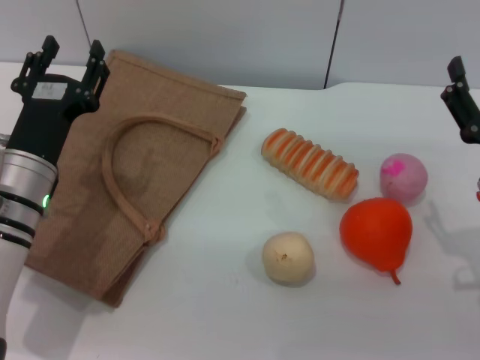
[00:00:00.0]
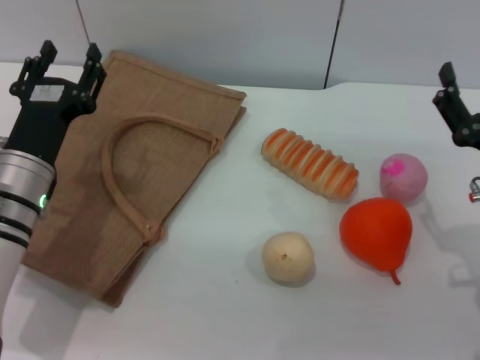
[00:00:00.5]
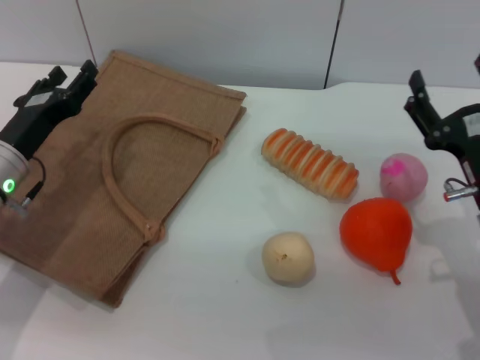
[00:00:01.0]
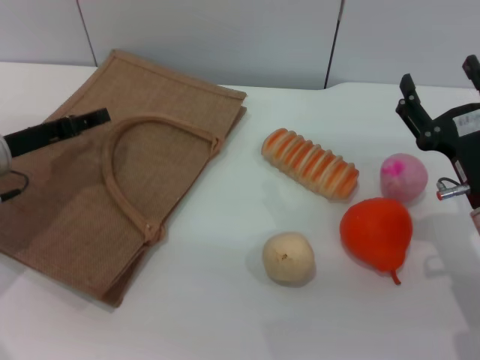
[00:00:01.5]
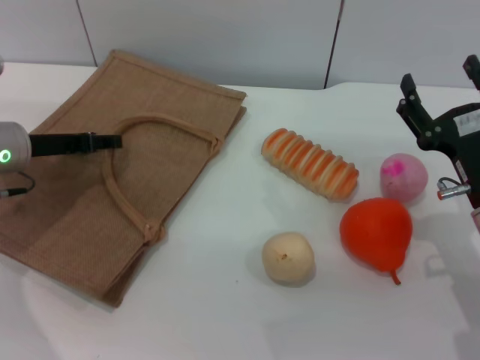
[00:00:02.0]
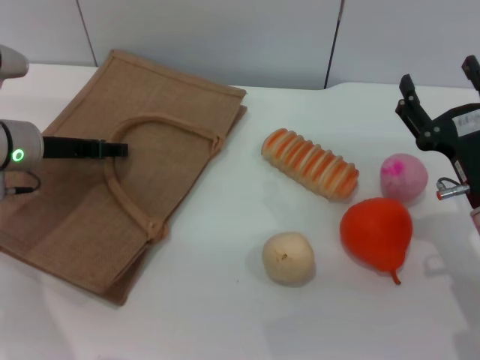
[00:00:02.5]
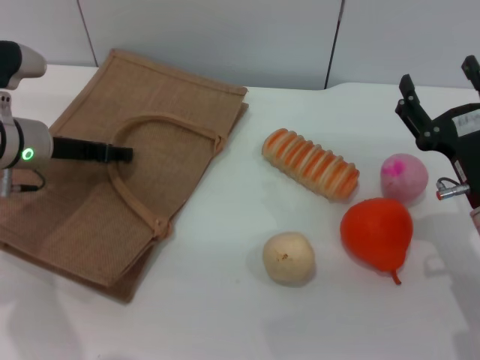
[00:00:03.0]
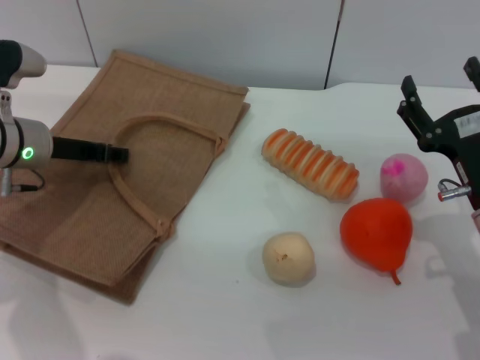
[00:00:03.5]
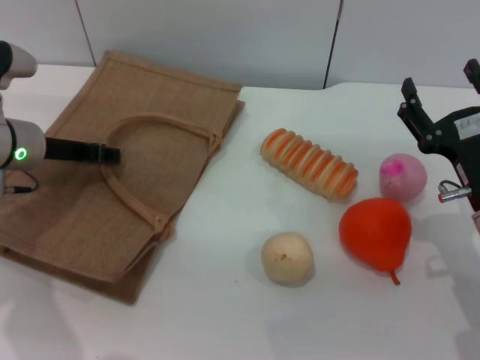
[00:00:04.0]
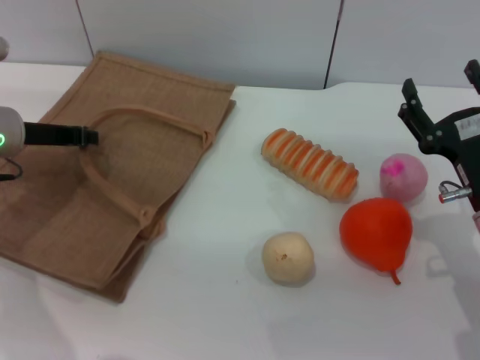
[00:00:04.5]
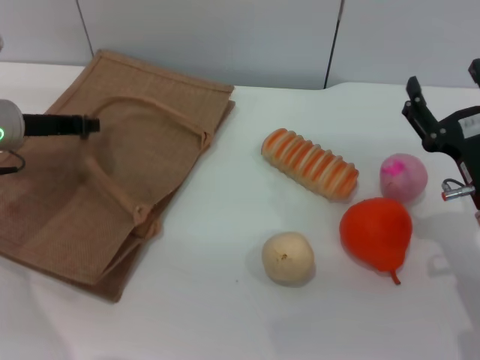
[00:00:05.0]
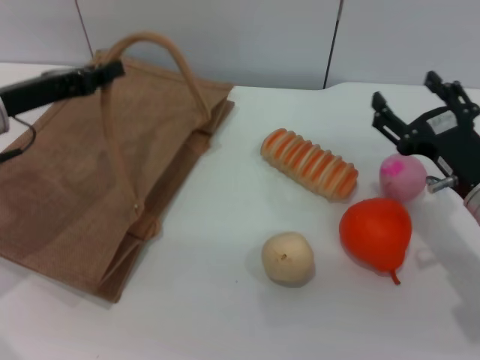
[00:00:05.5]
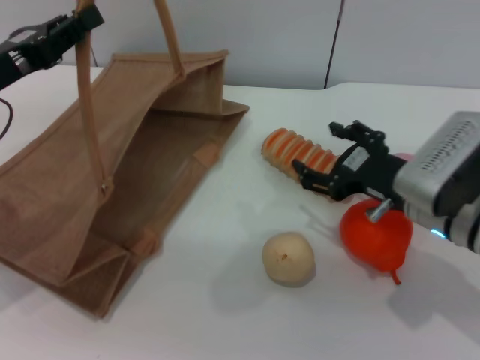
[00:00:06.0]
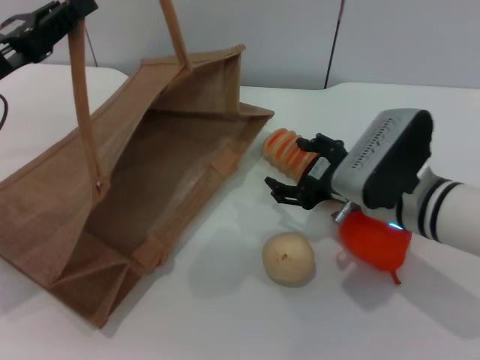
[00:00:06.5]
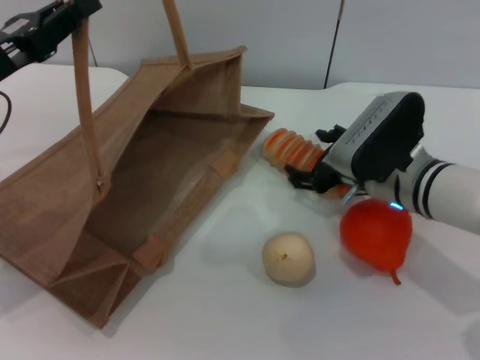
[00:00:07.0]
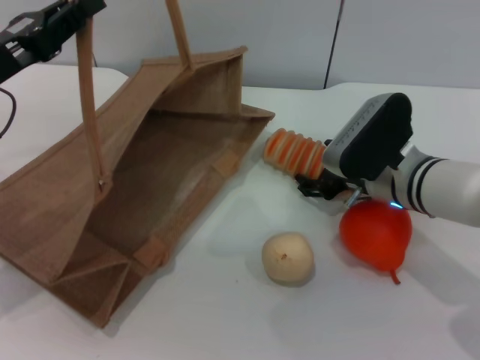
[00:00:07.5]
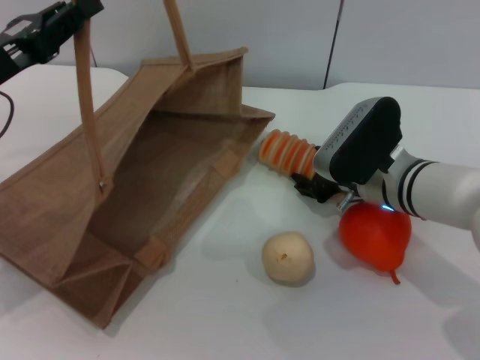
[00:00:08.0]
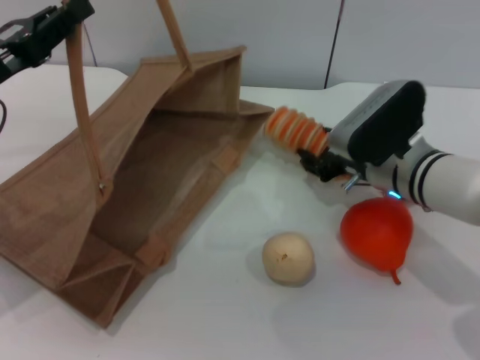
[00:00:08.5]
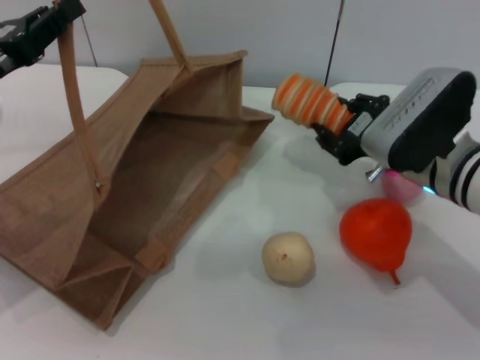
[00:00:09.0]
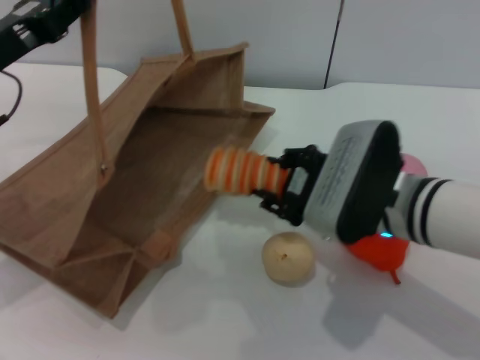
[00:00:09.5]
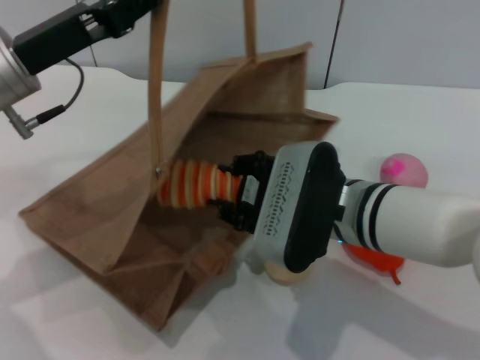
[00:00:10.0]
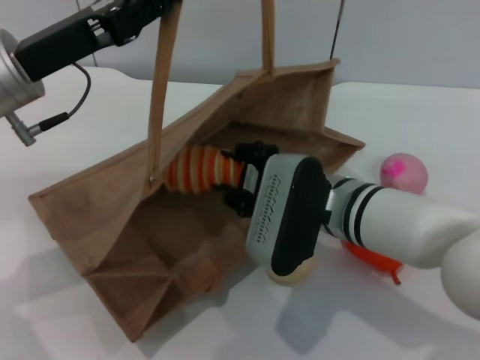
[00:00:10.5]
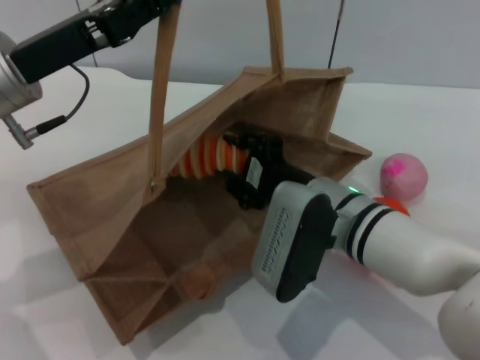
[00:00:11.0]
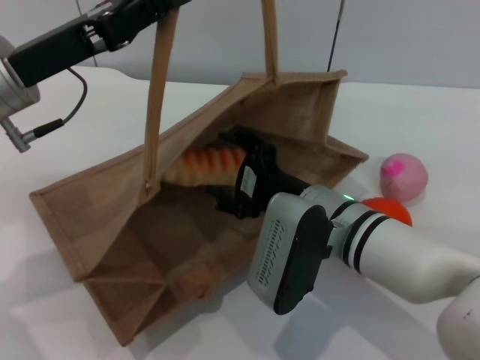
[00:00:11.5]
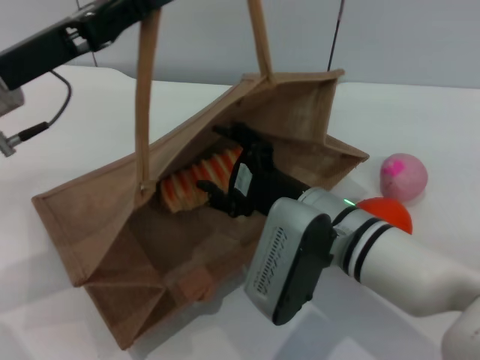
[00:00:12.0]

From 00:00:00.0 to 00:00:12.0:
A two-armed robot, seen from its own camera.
Task of the whole recording: pick up the bread from the table and place it in the brown handbag.
Step, from 00:00:00.0 to 00:00:05.0: Lift the woven bag with the left gripper to open it.
Step, from 00:00:05.5 to 00:00:08.5: Pick up the bread with the right gripper.
From 00:00:00.0 to 00:00:02.0: The left gripper is displaced forward and to the left by about 10 cm.
From 00:00:02.0 to 00:00:04.0: The left gripper closes its fingers.
From 00:00:04.0 to 00:00:06.0: The right gripper ends up some 5 cm from where it was, while the left gripper shifts some 10 cm backward and upward, and closes.
From 00:00:06.0 to 00:00:08.0: The right gripper heads forward, covering roughly 5 cm.
From 00:00:08.0 to 00:00:10.0: The left gripper heads to the right, covering approximately 5 cm; the right gripper shifts about 10 cm backward and to the left, and closes.
From 00:00:10.0 to 00:00:12.0: The right gripper opens.

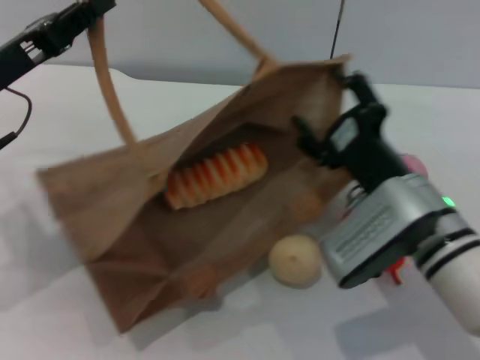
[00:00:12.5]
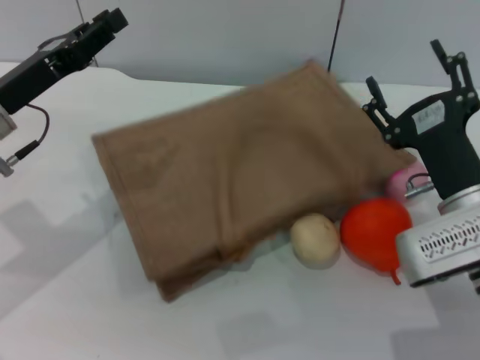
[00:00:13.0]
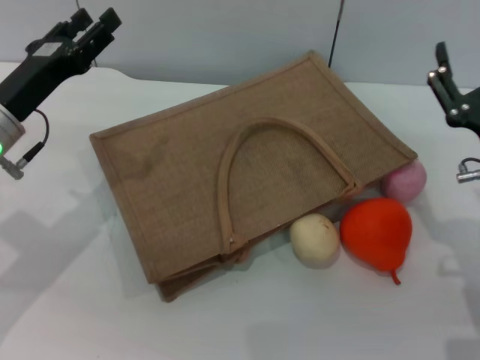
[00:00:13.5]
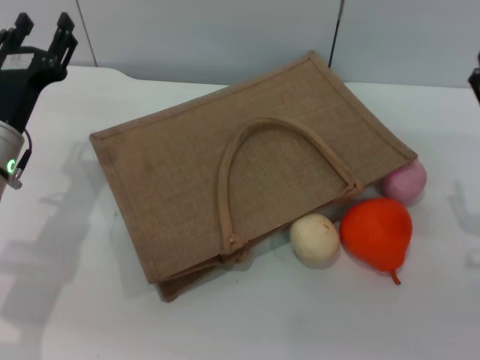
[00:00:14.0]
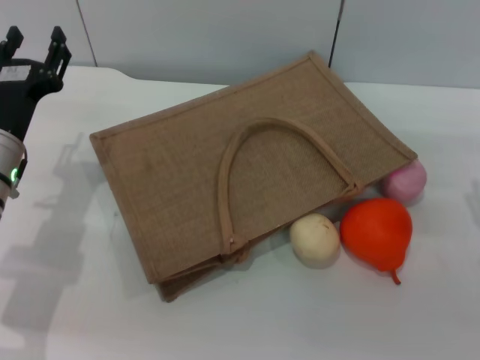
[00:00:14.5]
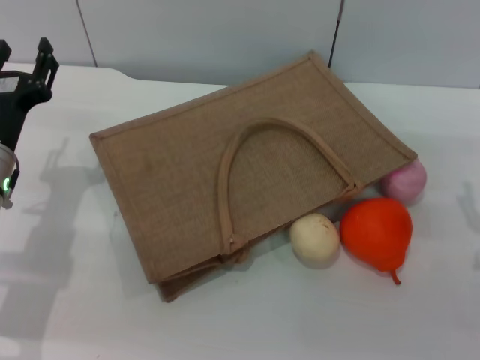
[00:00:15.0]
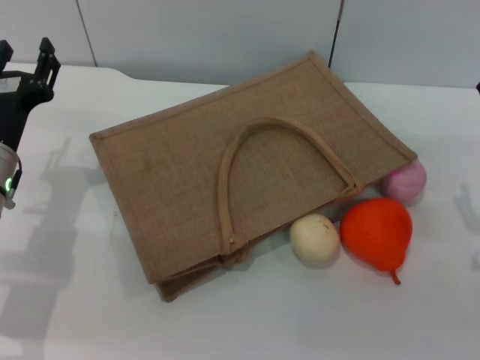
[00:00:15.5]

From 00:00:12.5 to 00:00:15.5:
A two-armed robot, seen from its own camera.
Task of the whole recording: pick up the bread from the table and place it in the brown handbag.
Step, from 00:00:12.5 to 00:00:13.0: Lower the woven bag with the left gripper to close it.
From 00:00:12.5 to 00:00:14.0: The left gripper travels downward by about 10 cm, and opens up. The right gripper travels to the right by some 10 cm.
From 00:00:14.0 to 00:00:15.5: The grippers make only small movements.

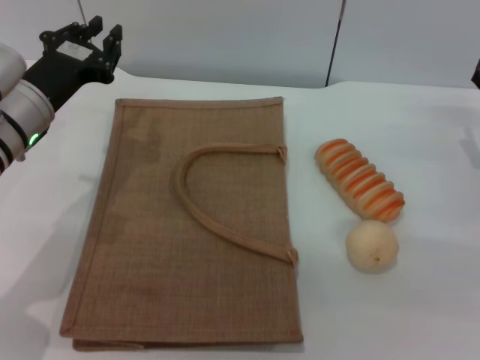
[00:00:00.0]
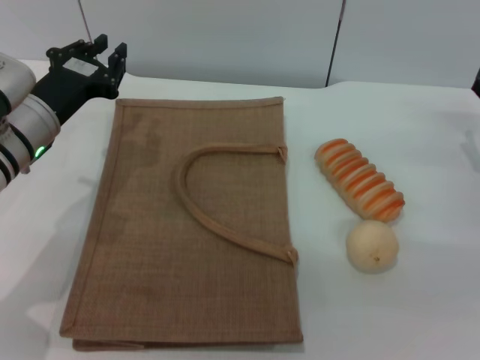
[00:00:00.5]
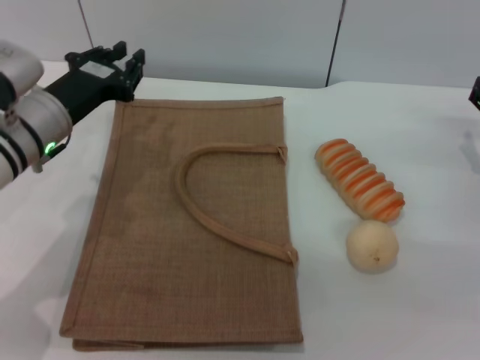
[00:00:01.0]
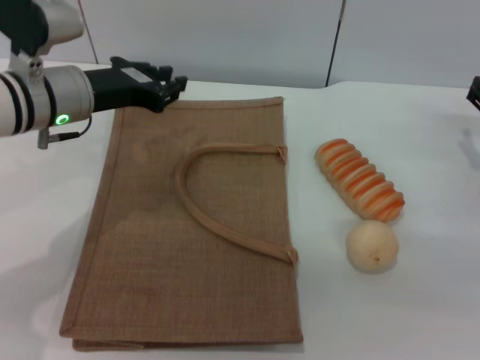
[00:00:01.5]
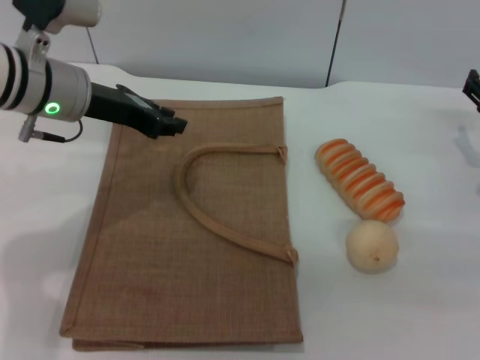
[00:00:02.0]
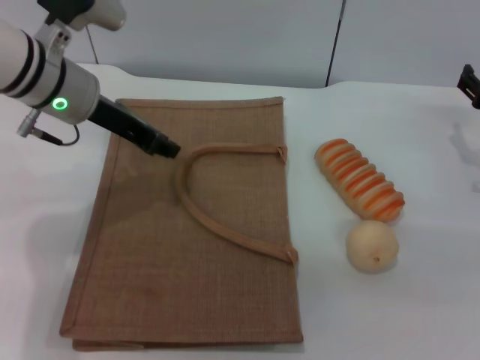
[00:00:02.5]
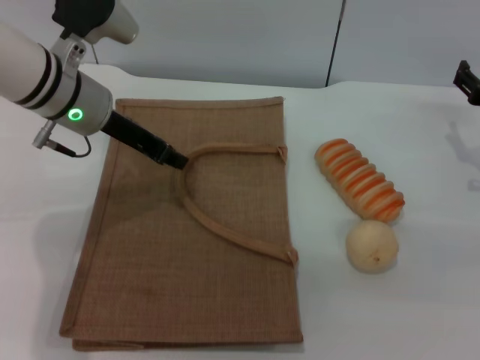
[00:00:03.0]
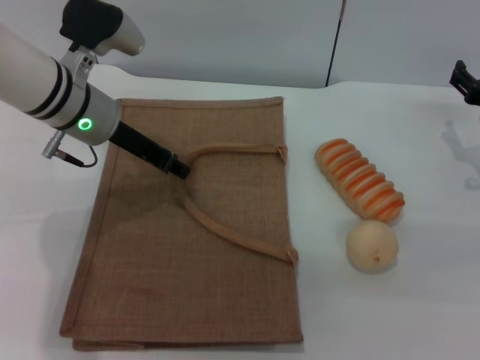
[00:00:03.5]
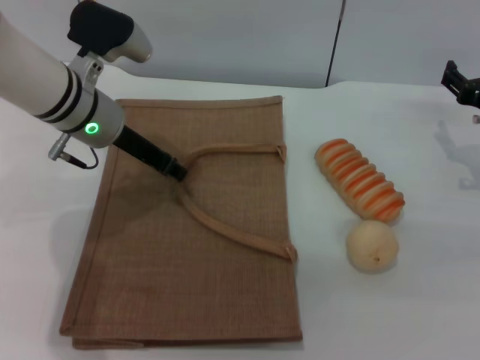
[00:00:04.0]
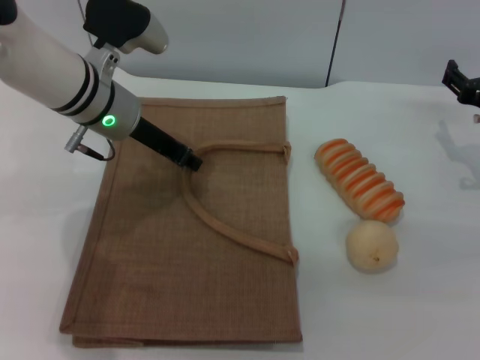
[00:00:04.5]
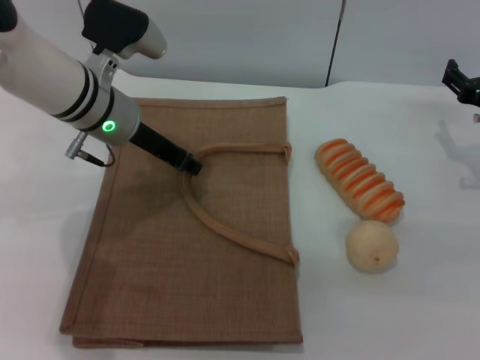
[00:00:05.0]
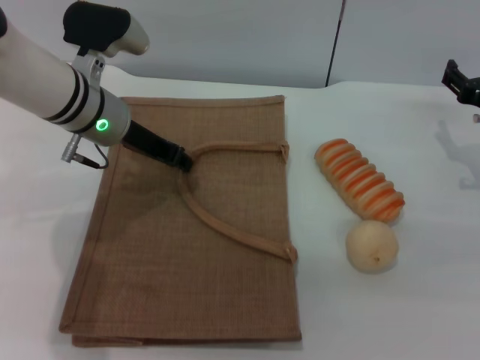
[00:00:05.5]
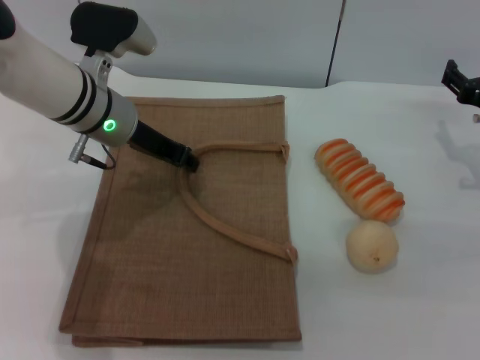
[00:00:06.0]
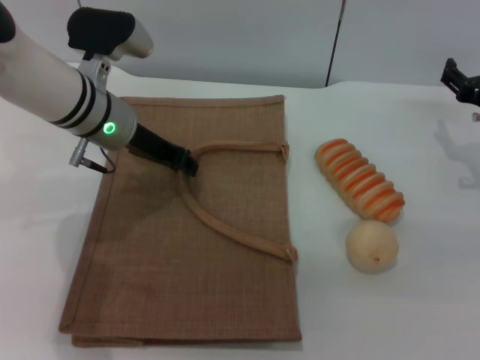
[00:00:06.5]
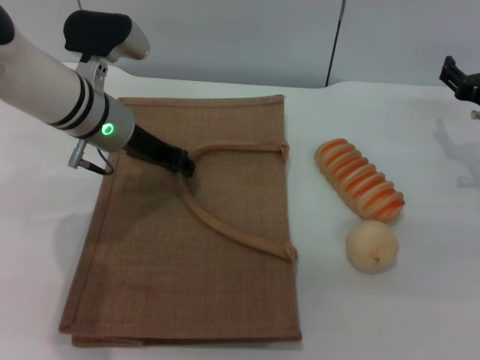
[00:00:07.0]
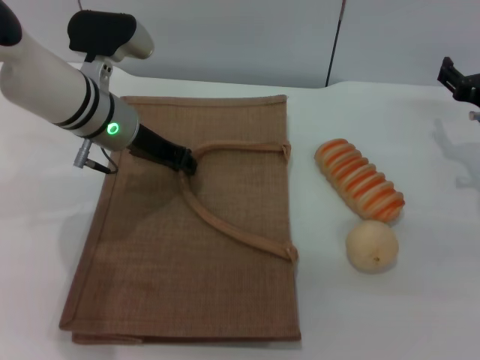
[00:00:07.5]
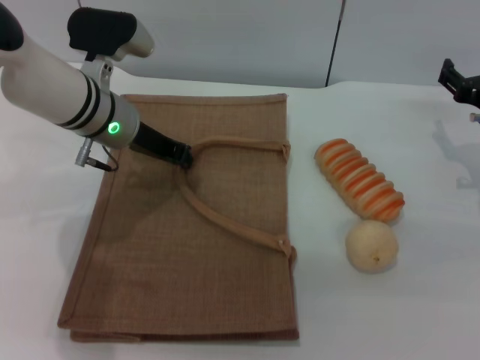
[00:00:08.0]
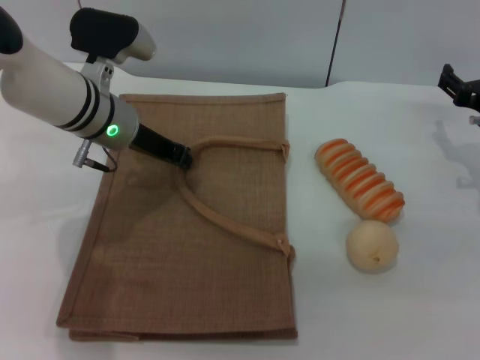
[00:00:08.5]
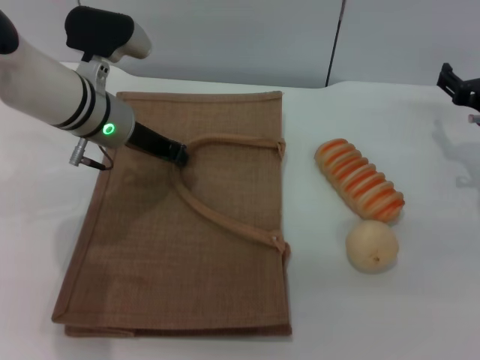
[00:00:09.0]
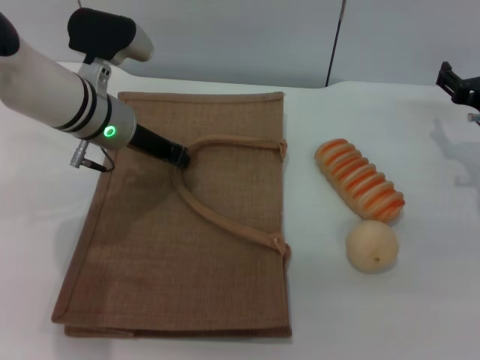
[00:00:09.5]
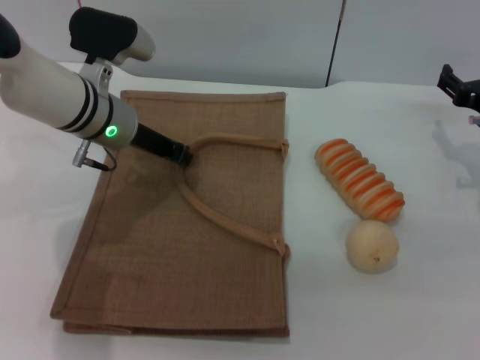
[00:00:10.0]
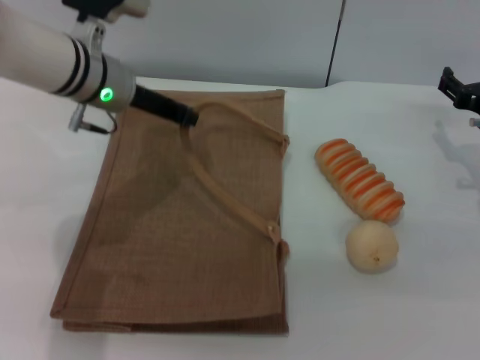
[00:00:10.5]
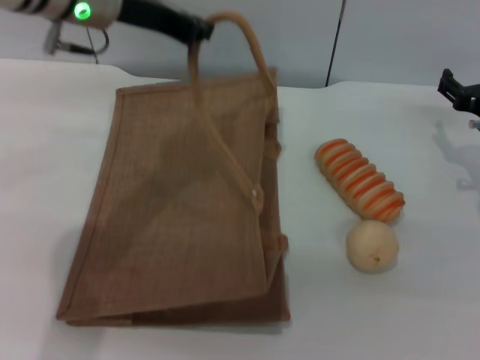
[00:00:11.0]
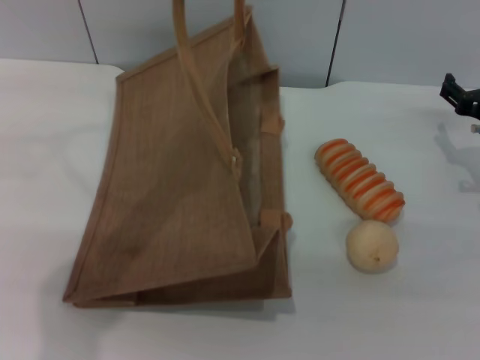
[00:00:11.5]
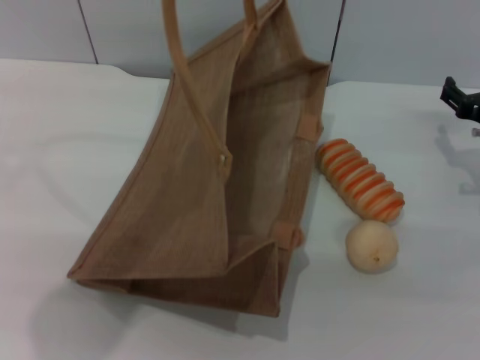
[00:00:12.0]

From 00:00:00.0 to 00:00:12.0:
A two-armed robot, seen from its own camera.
Task of the whole recording: pick up the bread and egg yolk pastry from the table and place it in the brown handbag.
From 00:00:00.0 to 00:00:02.0: The left gripper travels upward by some 5 cm.
From 00:00:02.0 to 00:00:04.0: The grippers make only small movements.
From 00:00:04.0 to 00:00:06.0: The grippers stay close to where they were, moving slightly.
From 00:00:06.0 to 00:00:08.0: The left gripper closes.
From 00:00:08.0 to 00:00:10.0: The grippers stay close to where they were, moving slightly.
From 00:00:10.0 to 00:00:12.0: The left gripper heads upward, covering approximately 25 cm.
